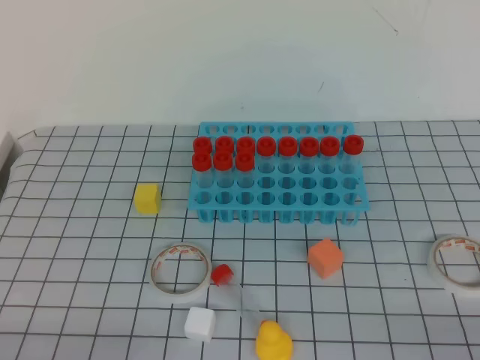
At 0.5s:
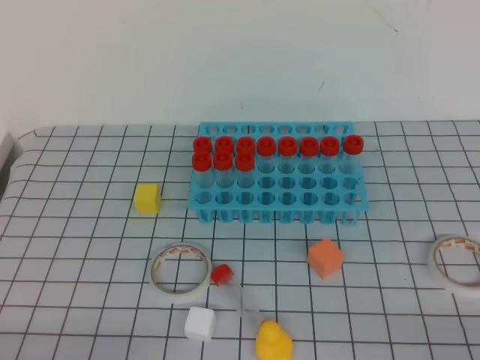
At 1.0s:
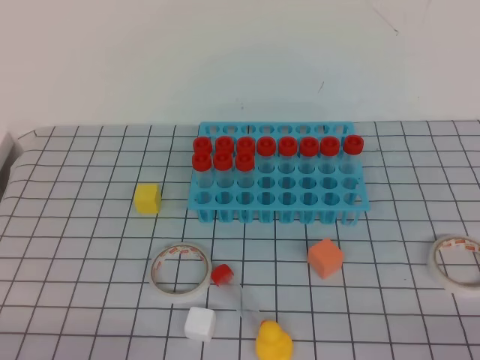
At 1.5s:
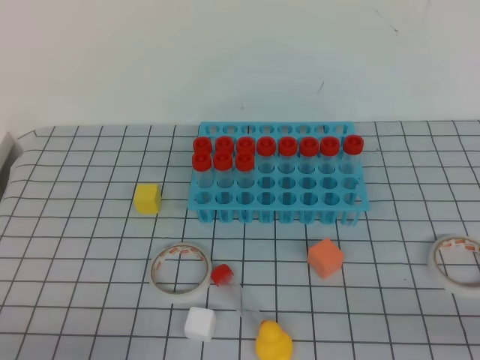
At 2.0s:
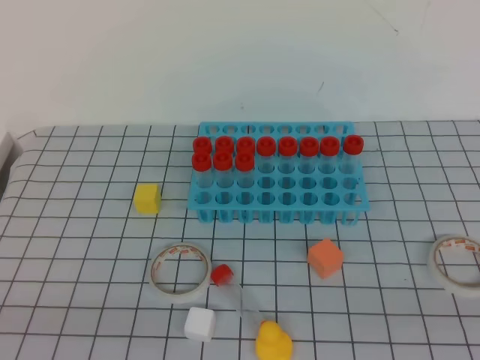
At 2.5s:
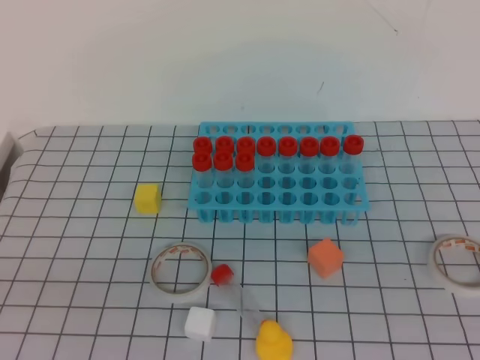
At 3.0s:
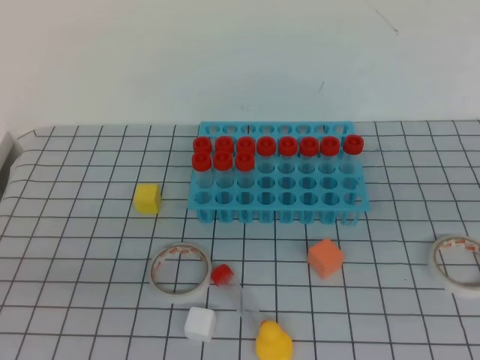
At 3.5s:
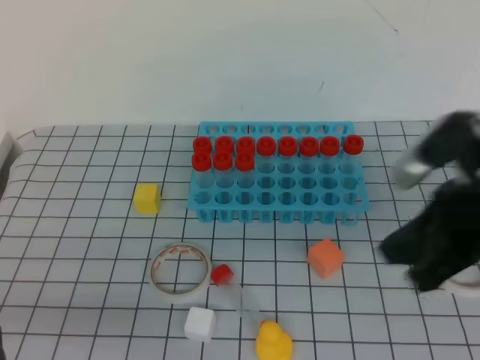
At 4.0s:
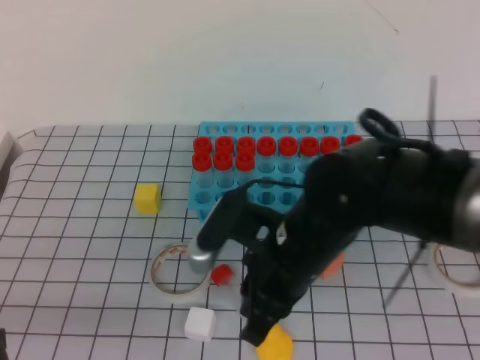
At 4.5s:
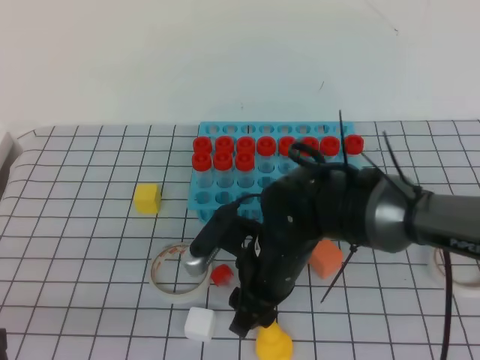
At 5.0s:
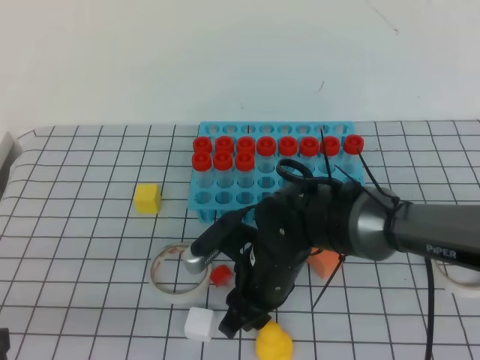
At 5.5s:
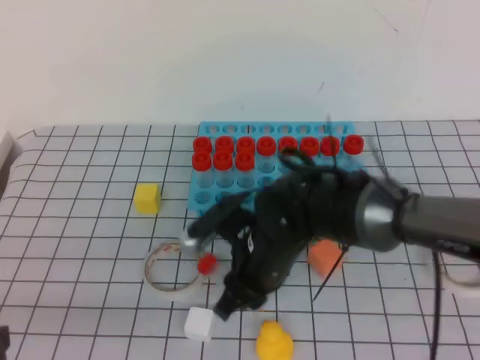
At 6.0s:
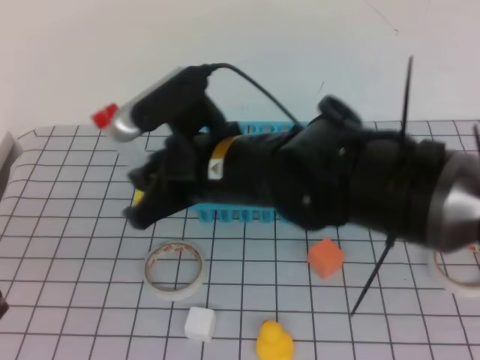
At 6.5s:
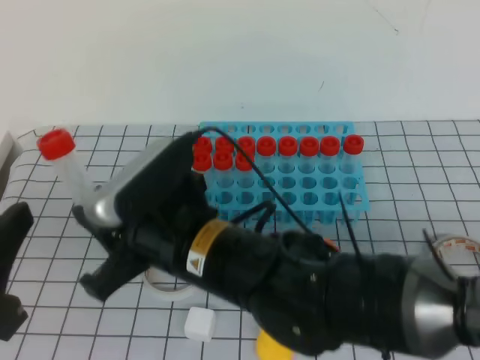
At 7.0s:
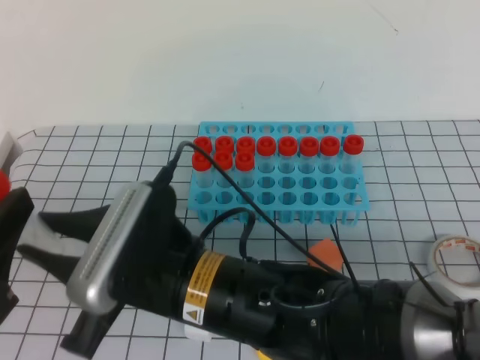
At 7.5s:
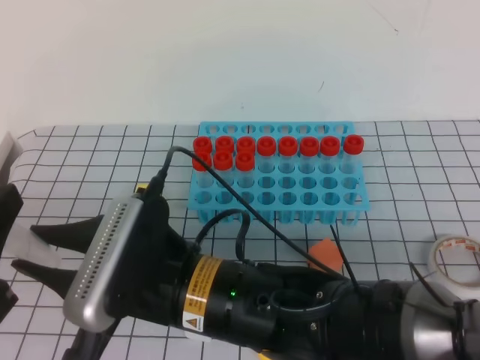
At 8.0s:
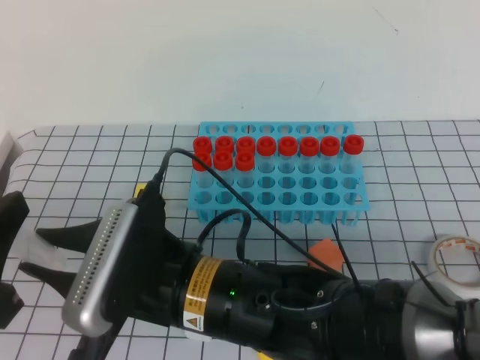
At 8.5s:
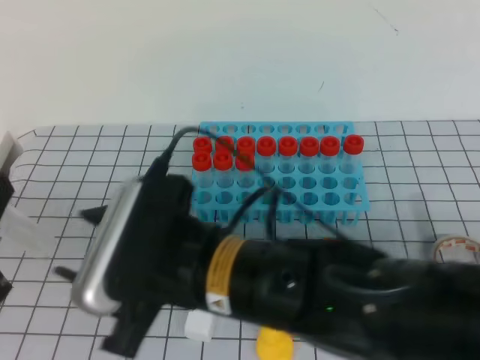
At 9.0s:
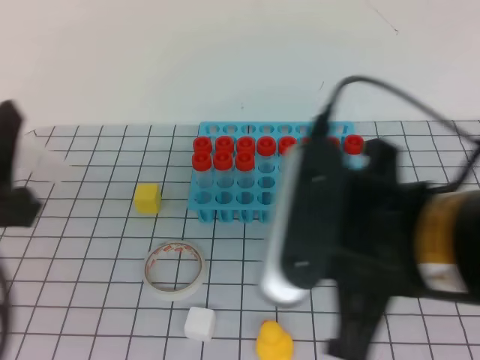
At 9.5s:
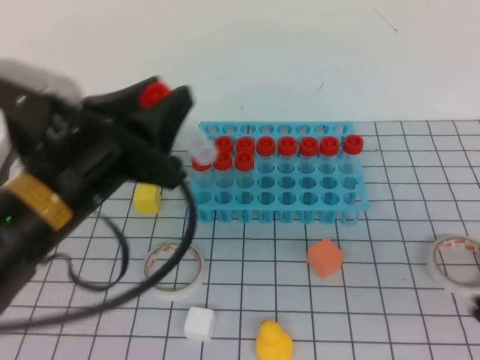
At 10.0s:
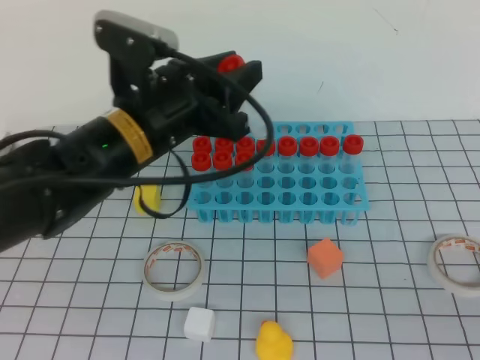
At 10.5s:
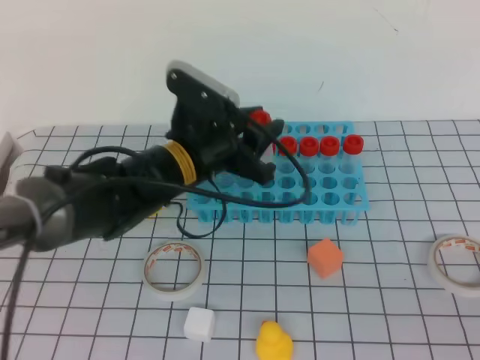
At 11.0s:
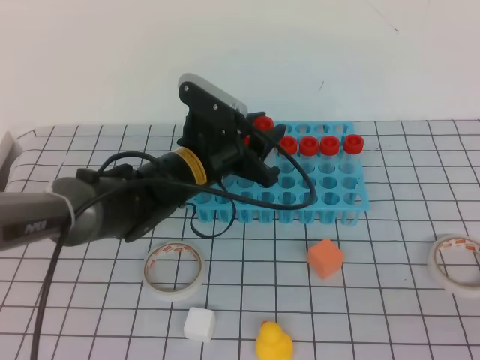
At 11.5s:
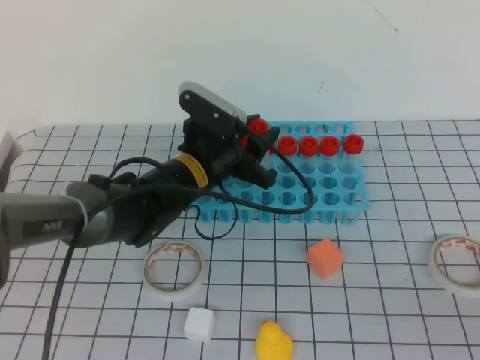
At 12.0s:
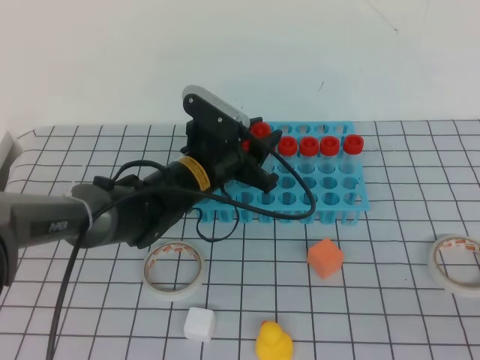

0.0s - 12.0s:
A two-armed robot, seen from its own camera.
2.0s - 4.0s: The right gripper moves to the left and forward, approximately 35 cm; the left gripper travels forward by roughly 5 cm, and goes upward and returns, about 10 cm each way.
4.0s - 6.0s: The right gripper travels to the left and upward by some 10 cm, and opens up.
6.0s - 8.0s: The right gripper shifts approximately 10 cm backward, while the left gripper opens its fingers.
8.0s - 10.0s: The left gripper goes about 25 cm forward and to the right. The right gripper goes about 35 cm to the right and backward, and closes its fingers.
10.0s - 12.0s: The left gripper is displaced downward and forward by approximately 15 cm.

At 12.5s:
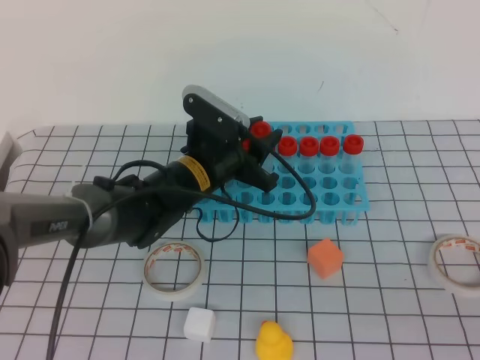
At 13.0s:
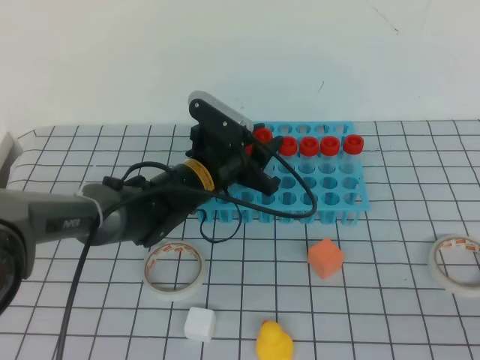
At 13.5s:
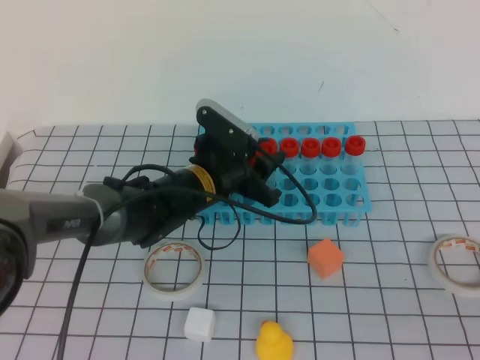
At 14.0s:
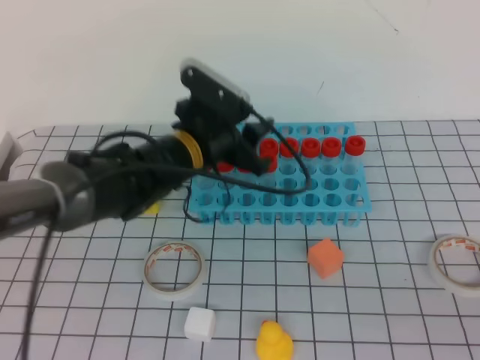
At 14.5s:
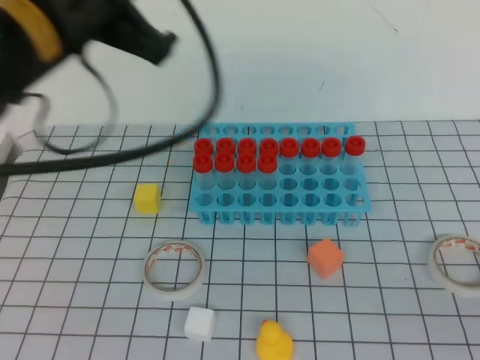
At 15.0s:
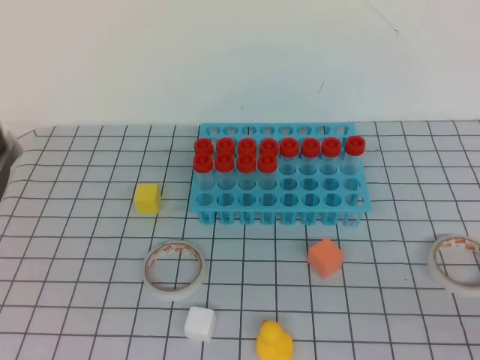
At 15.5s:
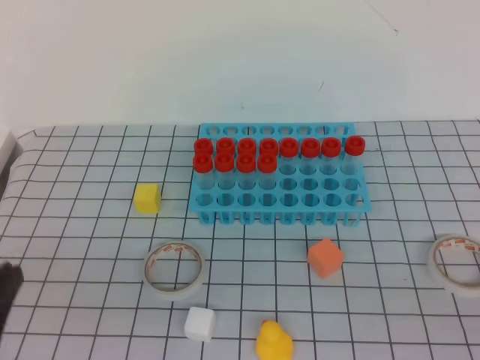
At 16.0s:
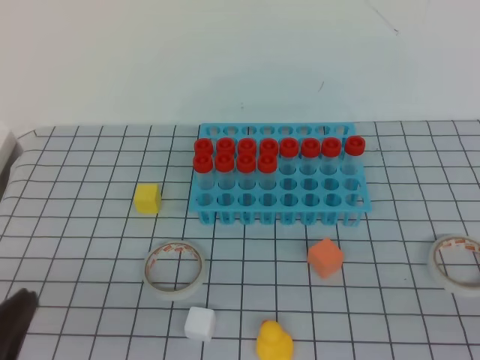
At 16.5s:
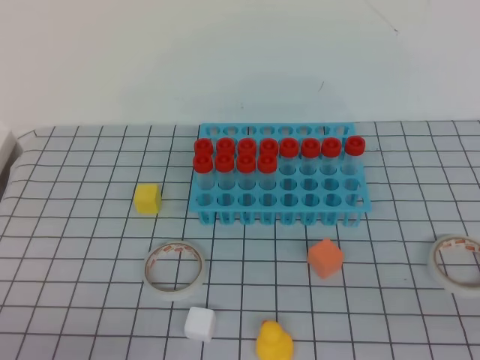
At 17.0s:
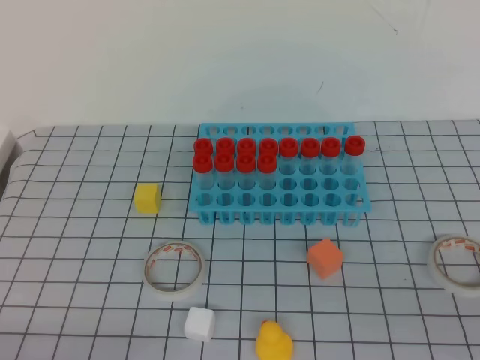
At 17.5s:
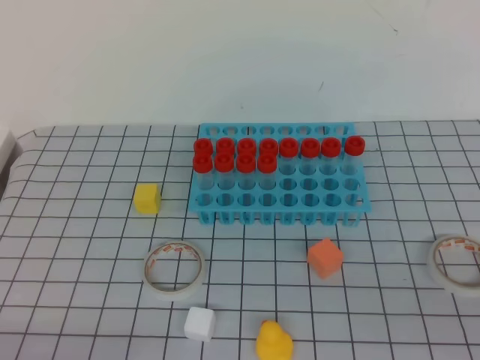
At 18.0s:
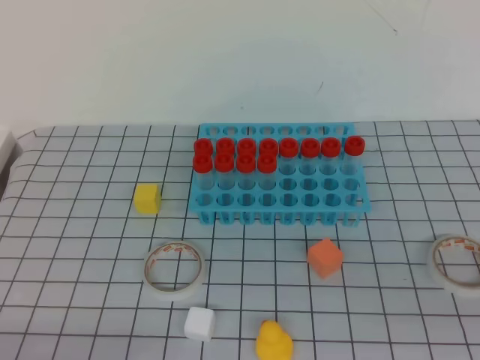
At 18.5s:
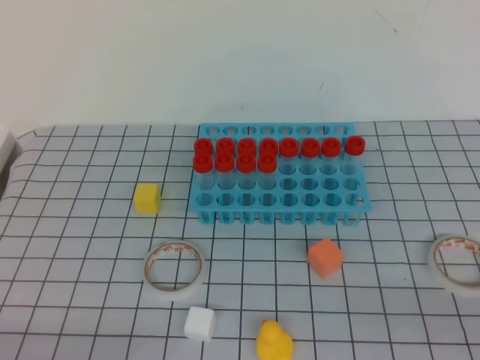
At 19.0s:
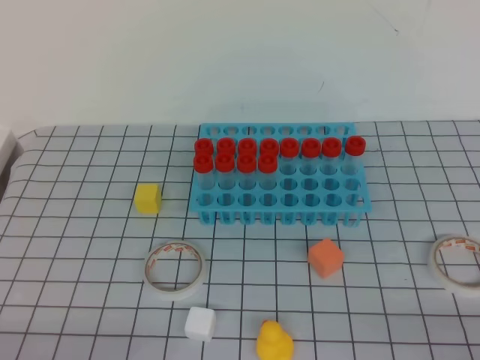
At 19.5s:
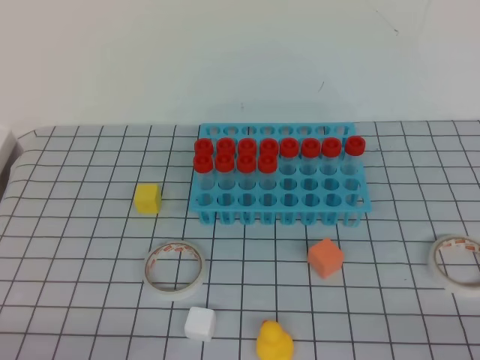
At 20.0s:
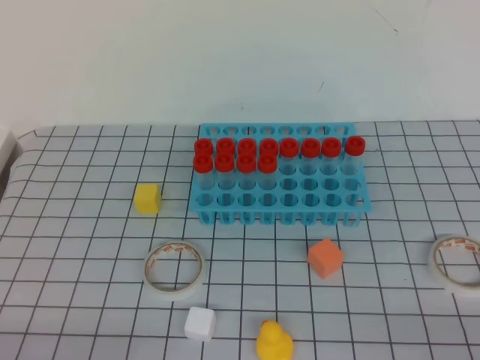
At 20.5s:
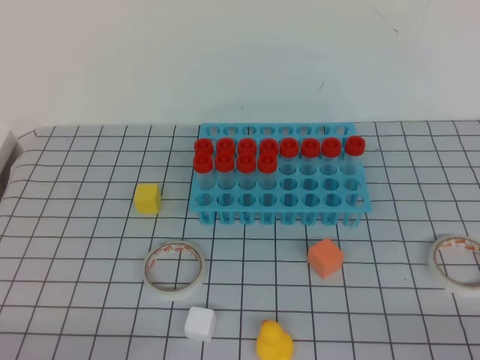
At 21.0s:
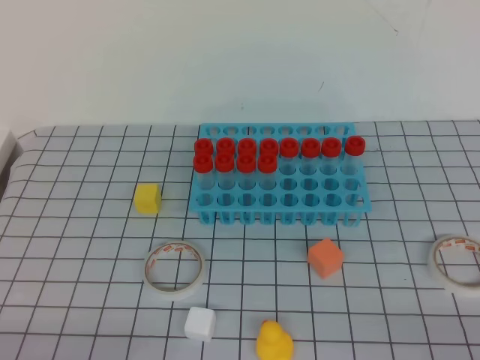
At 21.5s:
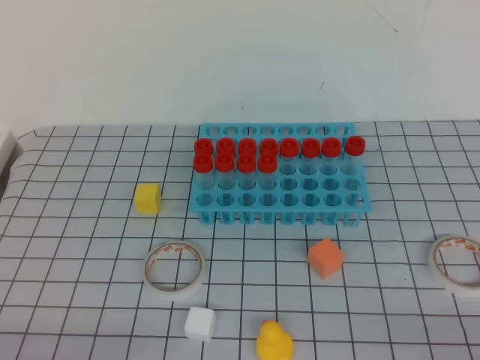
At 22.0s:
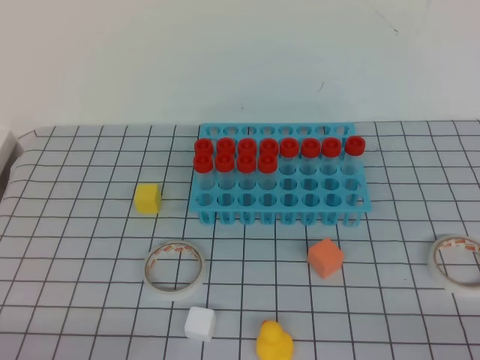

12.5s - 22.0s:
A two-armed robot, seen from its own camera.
12.5s - 14.5s: The left gripper moves upward and backward, some 25 cm, and closes up.
14.5s - 16.5s: The left gripper shifts approximately 35 cm downward, backward and to the left.
20.0s - 22.0s: Both grippers stay put.

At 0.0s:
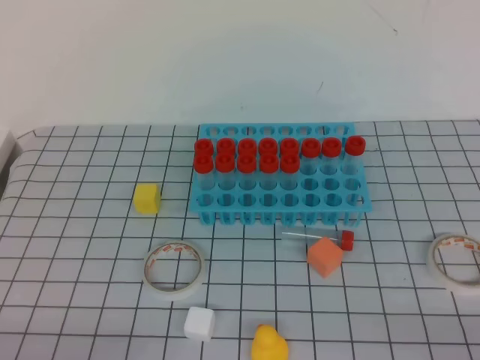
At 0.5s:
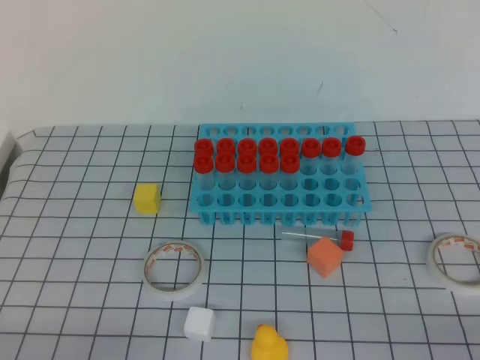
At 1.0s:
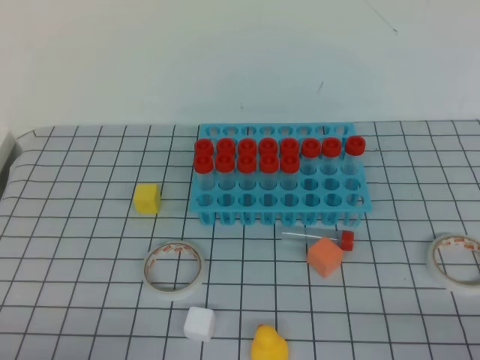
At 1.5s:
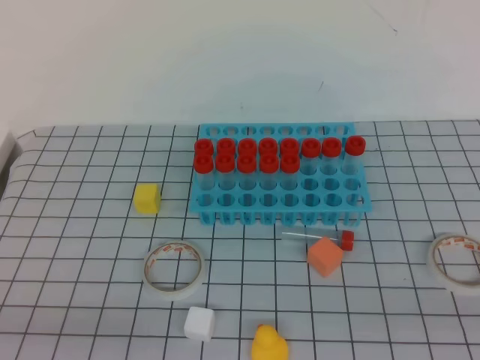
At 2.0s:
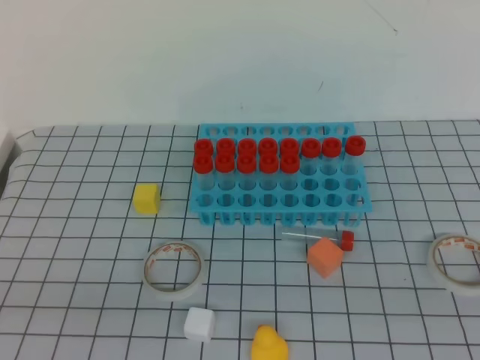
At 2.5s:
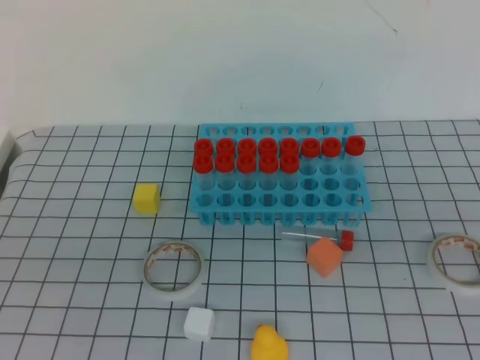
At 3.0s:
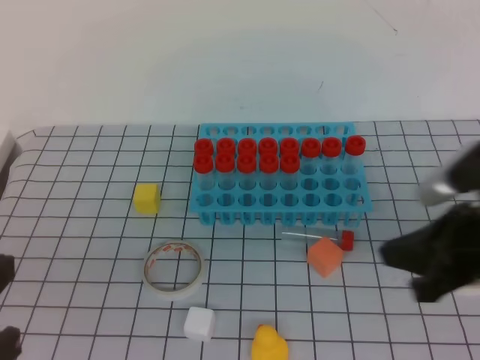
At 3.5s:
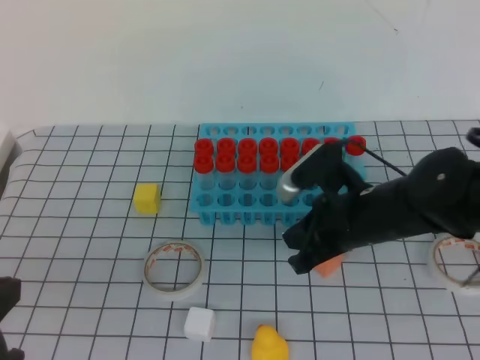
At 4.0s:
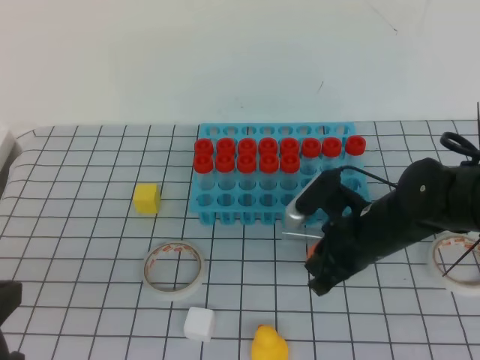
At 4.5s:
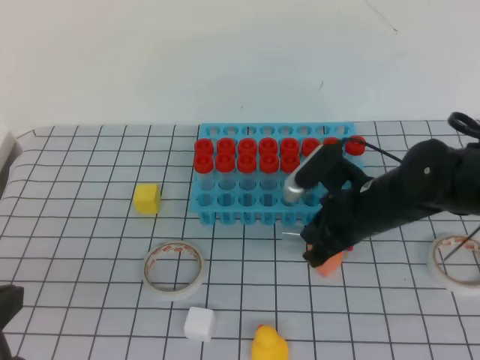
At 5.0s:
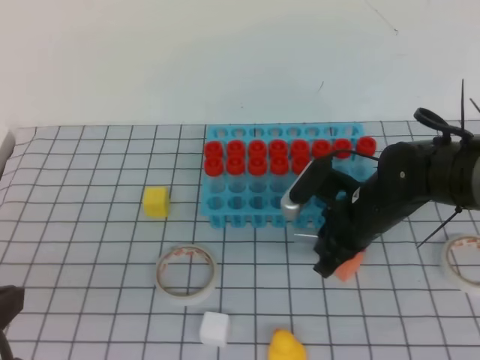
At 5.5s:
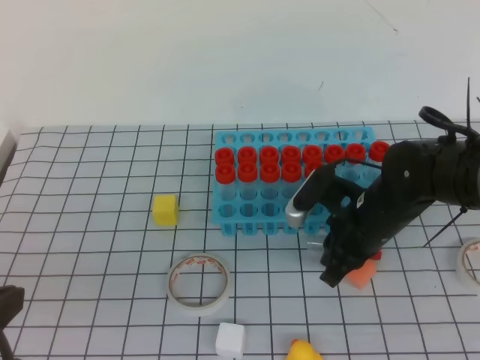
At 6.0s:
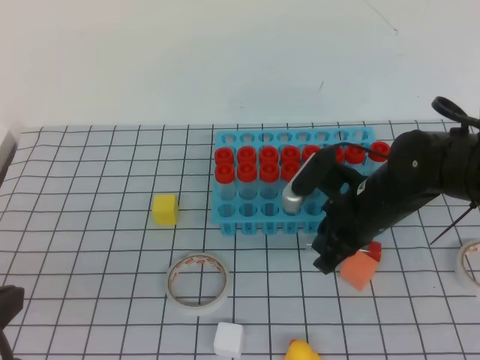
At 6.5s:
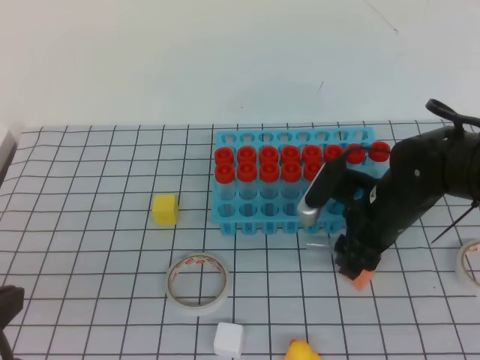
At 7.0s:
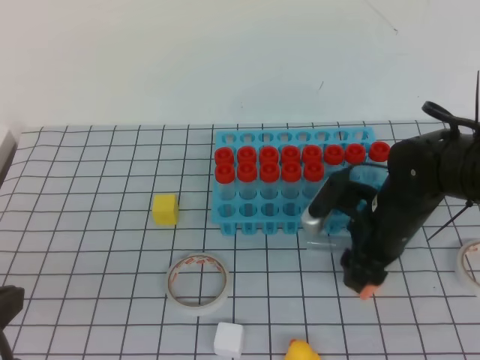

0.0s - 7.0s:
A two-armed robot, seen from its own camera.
2.0s - 3.5s: The left gripper heads forward, covering roughly 5 cm, while the right gripper goes some 35 cm forward and to the left.
3.5s - 5.0s: The right gripper moves some 5 cm.
5.0s - 7.0s: The right gripper opens up.
